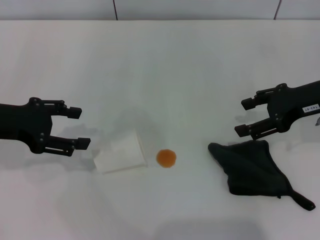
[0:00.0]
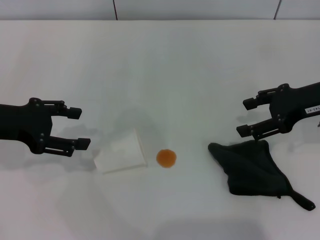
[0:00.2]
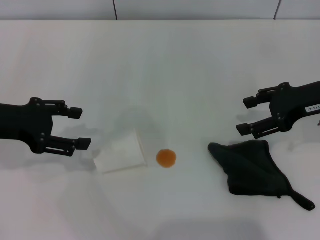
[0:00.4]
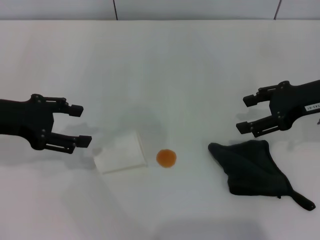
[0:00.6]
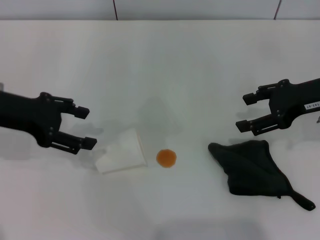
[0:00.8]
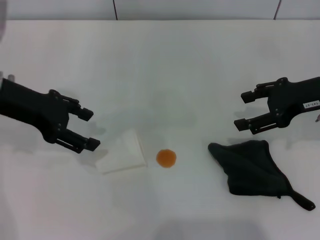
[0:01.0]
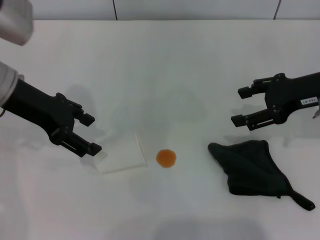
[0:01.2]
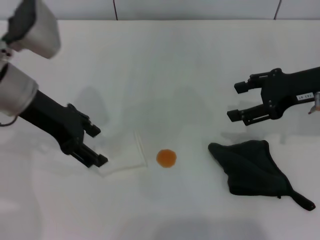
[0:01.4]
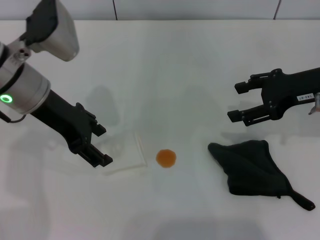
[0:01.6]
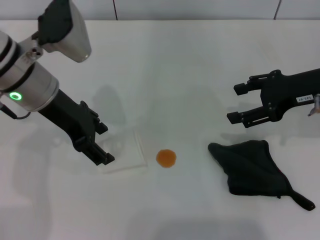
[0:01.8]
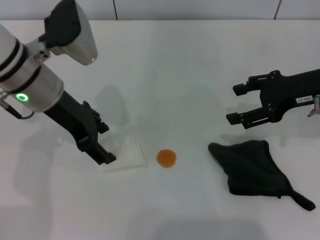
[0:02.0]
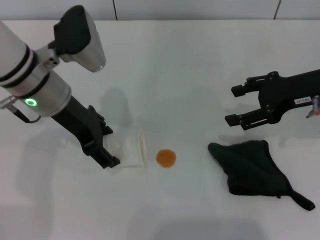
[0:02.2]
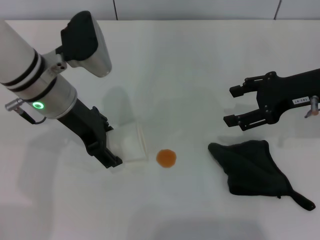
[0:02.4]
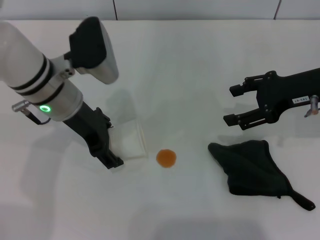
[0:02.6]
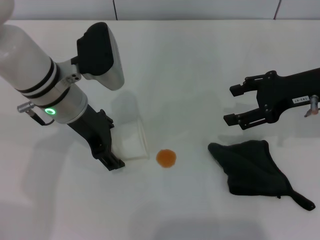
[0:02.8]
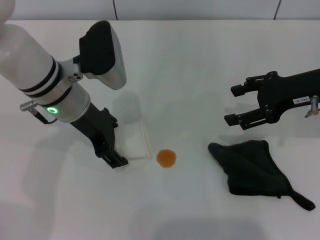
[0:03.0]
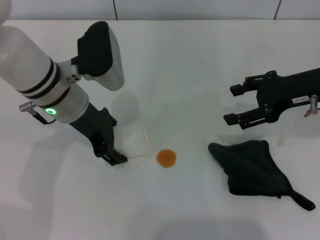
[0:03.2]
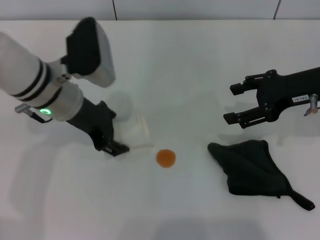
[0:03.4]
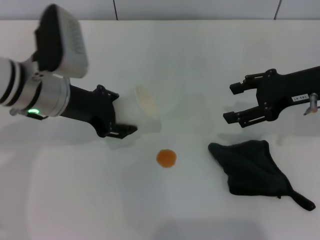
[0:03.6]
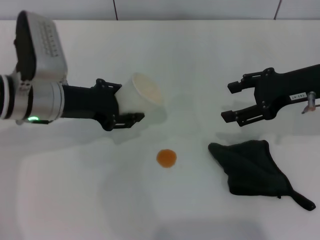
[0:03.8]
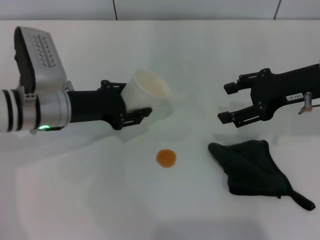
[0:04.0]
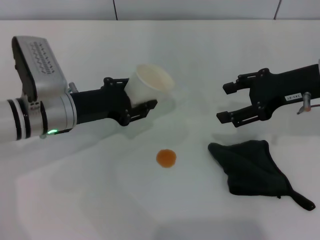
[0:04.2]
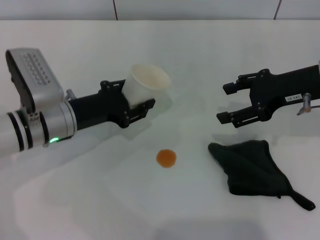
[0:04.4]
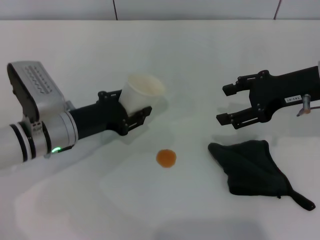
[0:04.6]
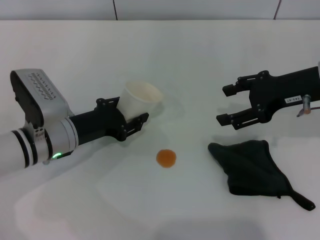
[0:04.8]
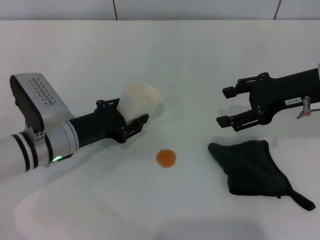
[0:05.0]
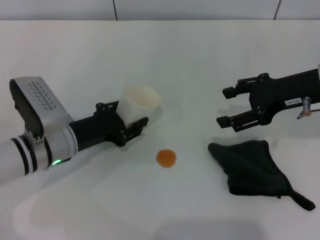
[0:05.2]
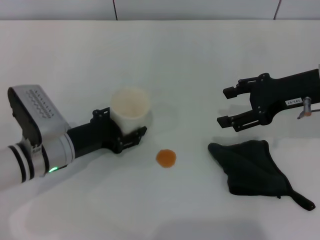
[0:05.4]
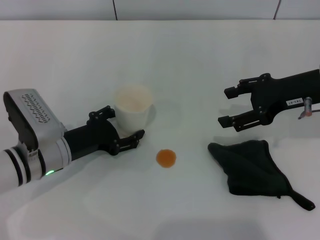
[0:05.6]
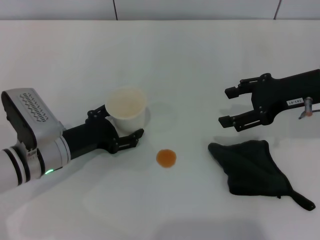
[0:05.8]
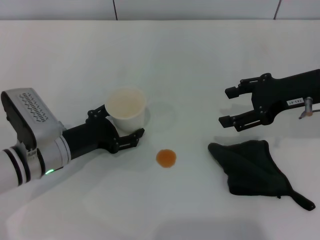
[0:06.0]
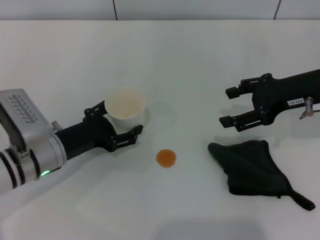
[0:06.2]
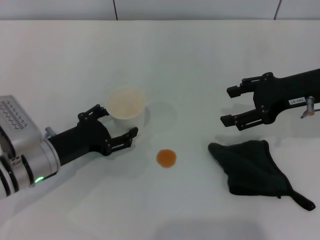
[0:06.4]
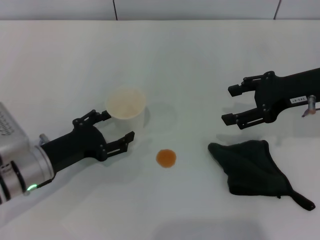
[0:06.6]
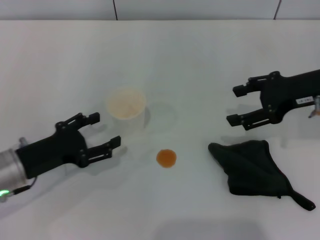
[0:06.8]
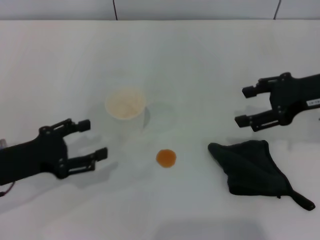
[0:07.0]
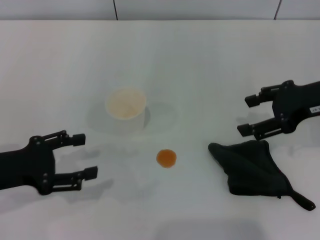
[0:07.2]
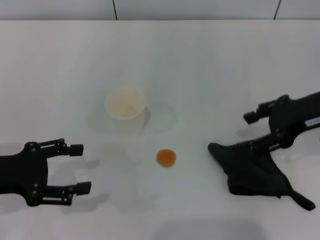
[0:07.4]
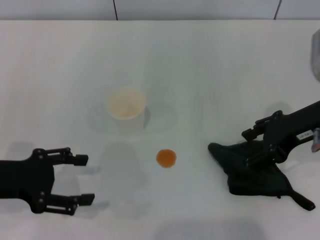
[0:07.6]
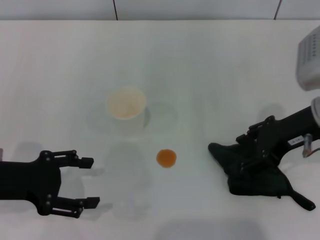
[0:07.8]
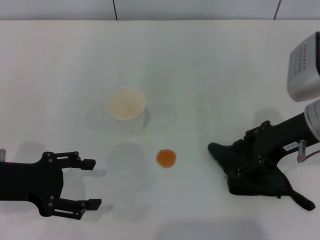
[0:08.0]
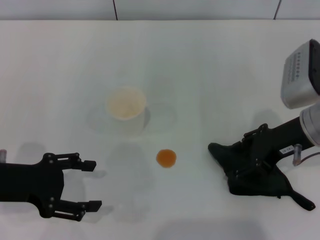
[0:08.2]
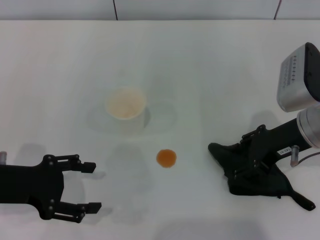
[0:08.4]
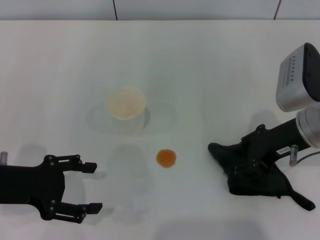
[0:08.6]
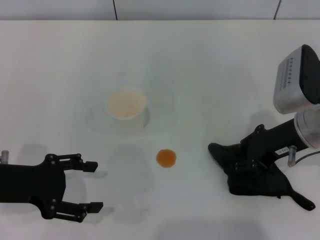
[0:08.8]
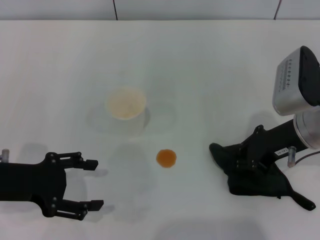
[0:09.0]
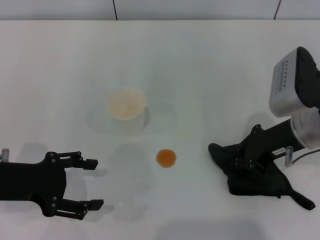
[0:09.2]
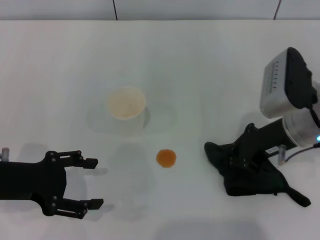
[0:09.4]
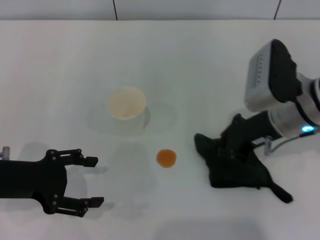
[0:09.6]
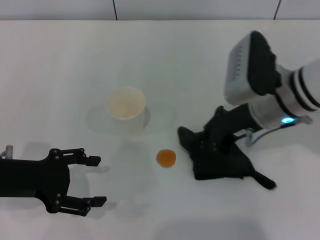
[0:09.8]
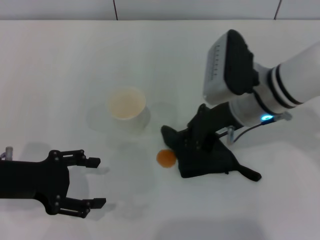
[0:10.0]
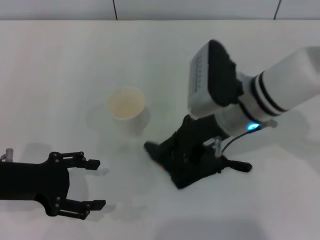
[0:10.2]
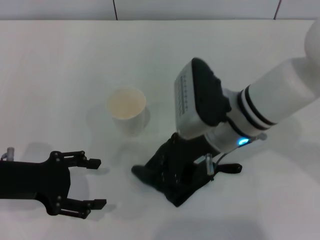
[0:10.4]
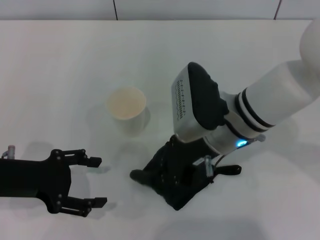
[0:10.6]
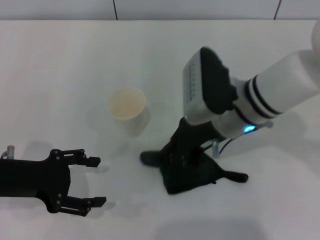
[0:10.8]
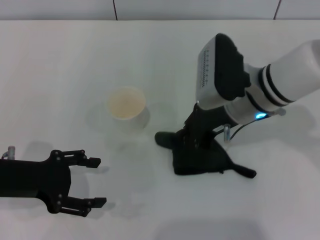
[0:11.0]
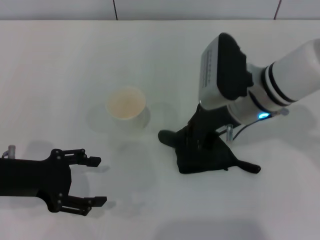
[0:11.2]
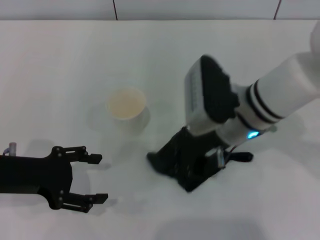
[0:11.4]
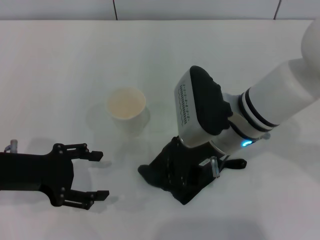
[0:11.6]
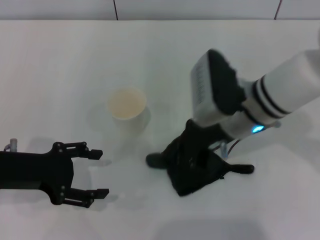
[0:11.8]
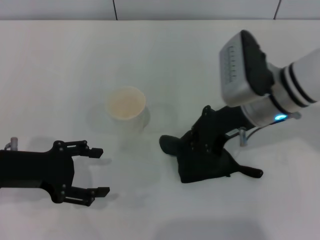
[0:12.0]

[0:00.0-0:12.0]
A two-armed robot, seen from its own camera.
Step, 0:00.0 to 0:03.2: Grasp the paper cup with the left gripper.
Step, 0:03.4 to 0:06.4: Stand the paper cup upright with the left gripper.
Step, 0:06.6 to 0:09.2: Grasp the rag with the right gripper.
0:00.0 to 0:01.6: The left gripper is displaced to the right by roughly 10 cm.
0:01.6 to 0:03.0: The left gripper ends up approximately 5 cm from where it was.
0:03.0 to 0:04.4: The left gripper moves downward, approximately 10 cm, and closes up.
0:04.4 to 0:06.0: The left gripper shifts by approximately 5 cm, and opens up.
0:06.0 to 0:07.6: The left gripper is displaced upward, to the left and backward by approximately 15 cm.
0:07.6 to 0:09.0: The right gripper closes.
0:09.0 to 0:10.4: The right gripper moves to the left, roughly 10 cm.
0:10.4 to 0:12.0: The right gripper travels to the right by about 5 cm.

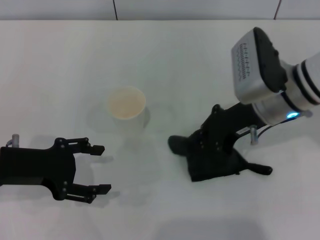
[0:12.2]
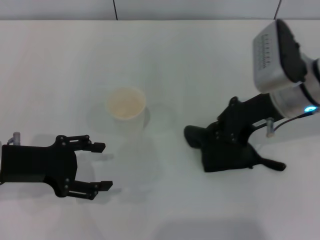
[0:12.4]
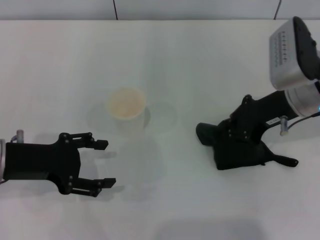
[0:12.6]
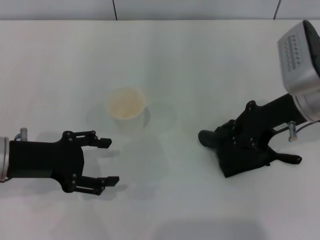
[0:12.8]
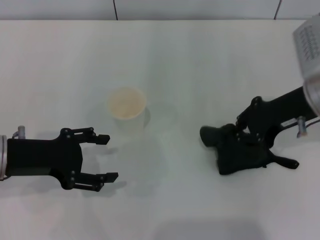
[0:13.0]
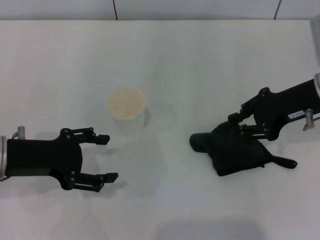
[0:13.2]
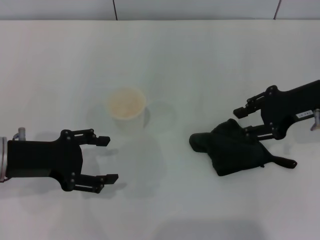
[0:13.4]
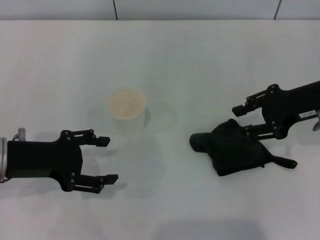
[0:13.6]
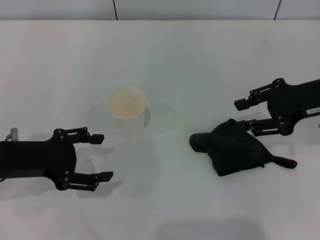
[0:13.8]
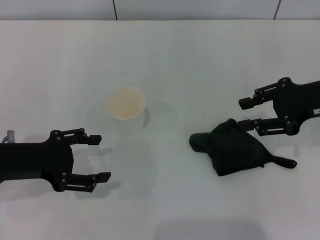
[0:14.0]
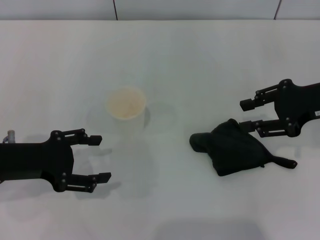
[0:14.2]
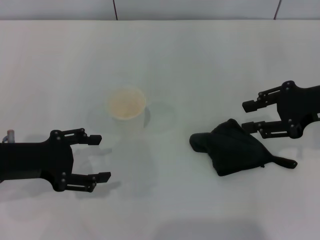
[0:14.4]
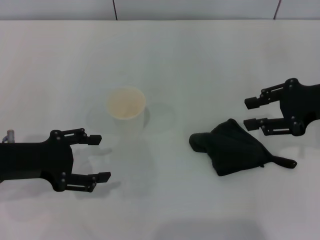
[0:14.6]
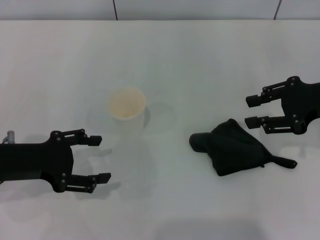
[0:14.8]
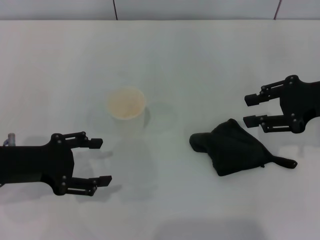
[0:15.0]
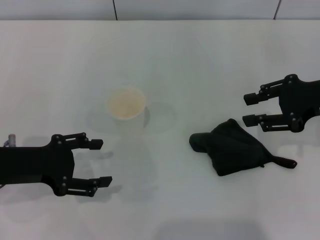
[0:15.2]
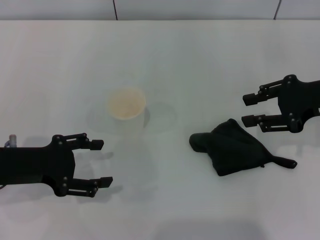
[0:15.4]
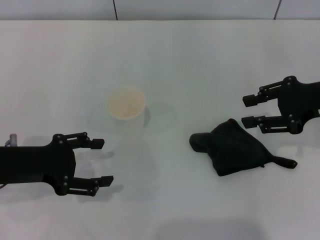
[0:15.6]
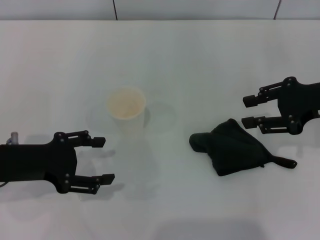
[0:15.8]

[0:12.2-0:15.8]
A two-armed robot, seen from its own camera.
Step, 0:13.0 to 0:14.0: Place the rag on the table with the right gripper.
0:12.2 to 0:14.0: The right gripper travels to the right by roughly 10 cm, and opens.
0:14.0 to 0:15.8: Both grippers stay about where they are.
